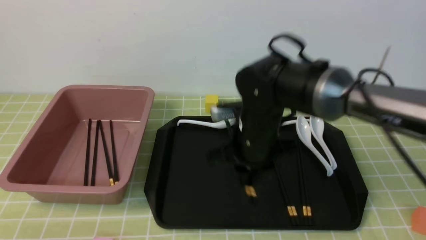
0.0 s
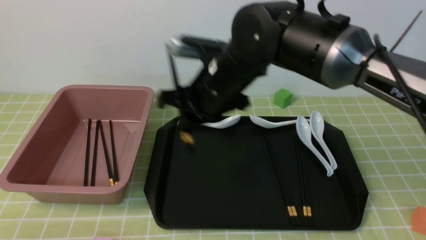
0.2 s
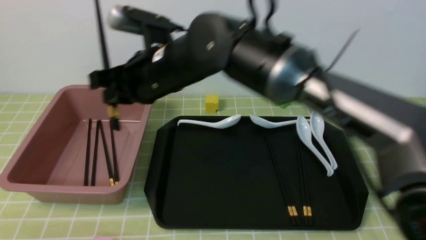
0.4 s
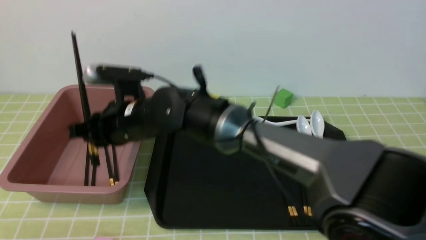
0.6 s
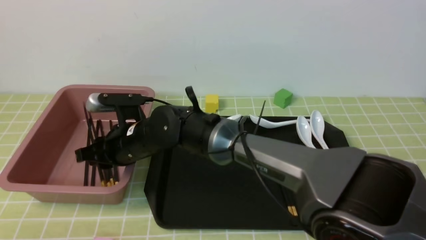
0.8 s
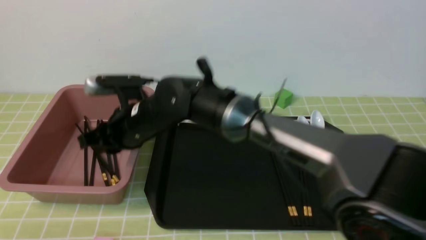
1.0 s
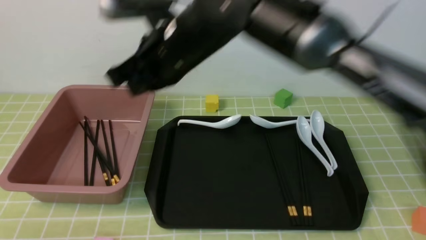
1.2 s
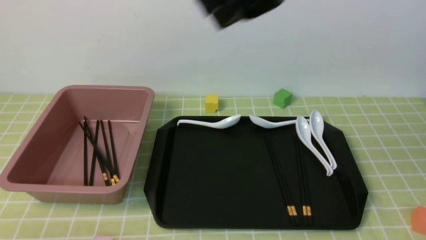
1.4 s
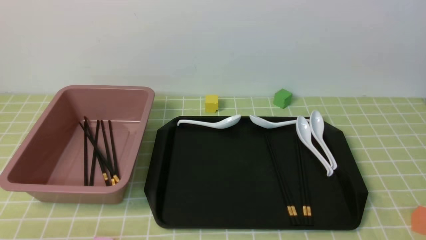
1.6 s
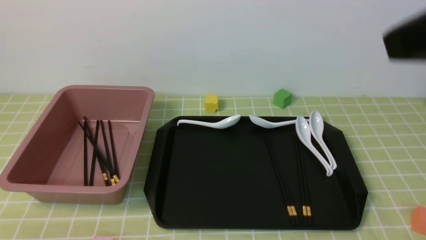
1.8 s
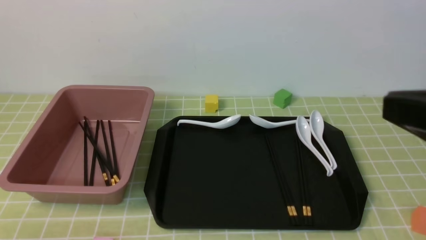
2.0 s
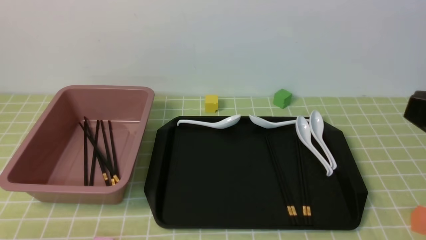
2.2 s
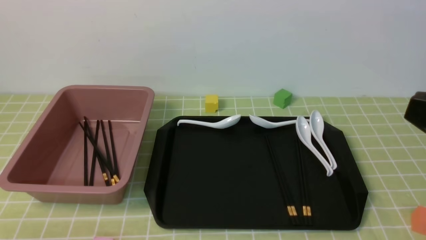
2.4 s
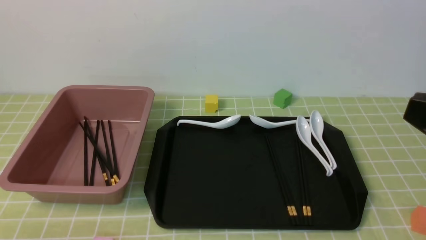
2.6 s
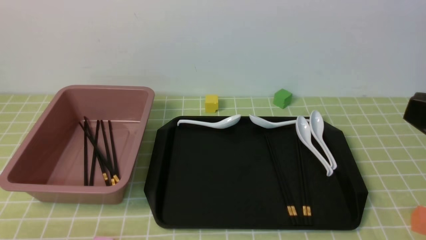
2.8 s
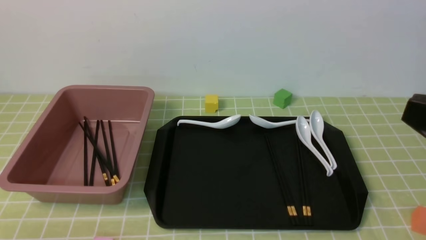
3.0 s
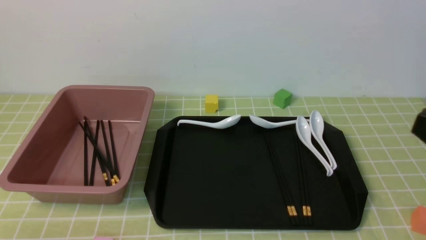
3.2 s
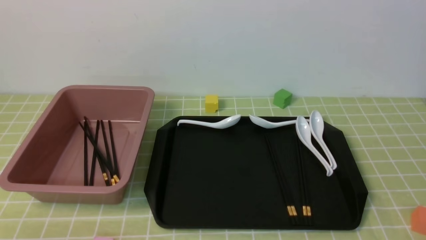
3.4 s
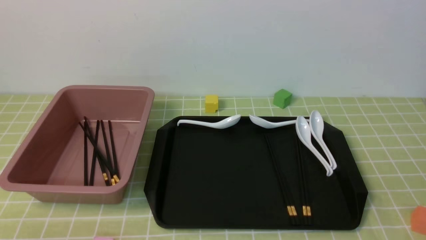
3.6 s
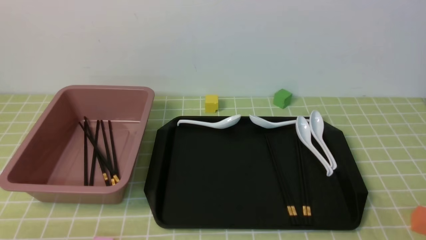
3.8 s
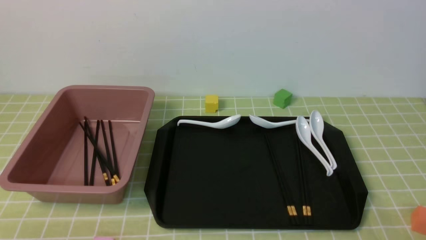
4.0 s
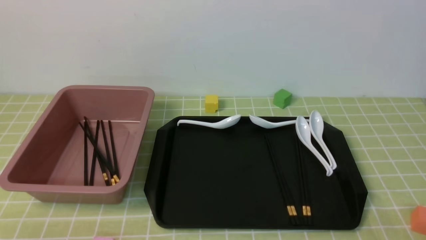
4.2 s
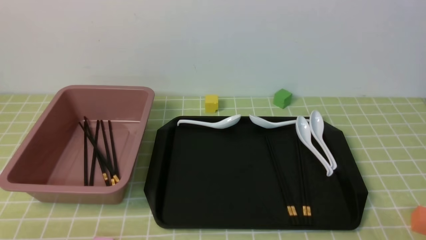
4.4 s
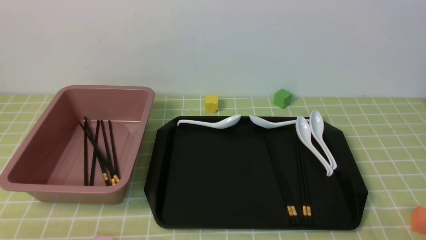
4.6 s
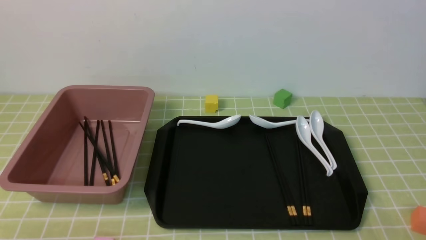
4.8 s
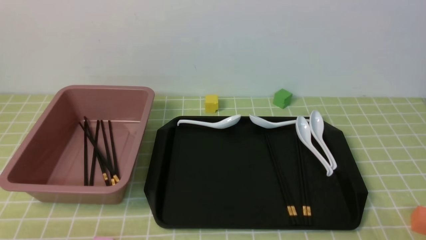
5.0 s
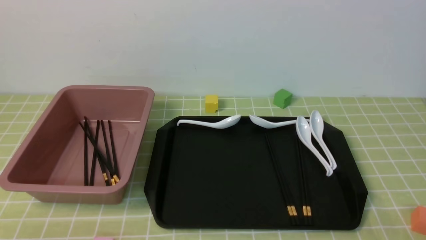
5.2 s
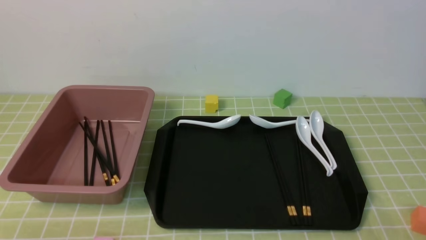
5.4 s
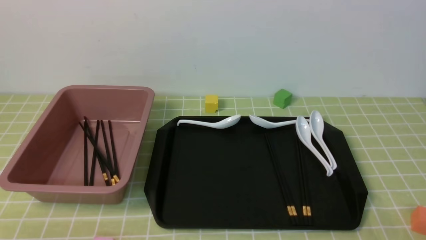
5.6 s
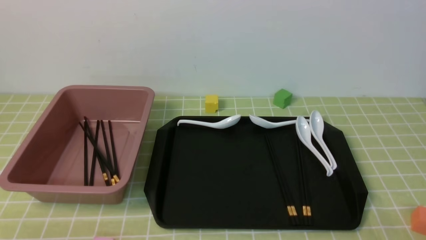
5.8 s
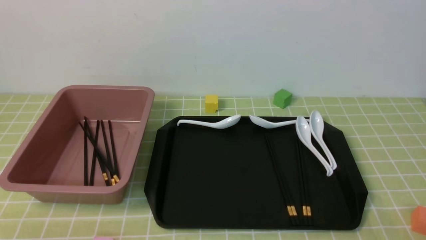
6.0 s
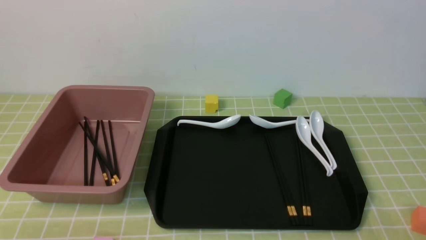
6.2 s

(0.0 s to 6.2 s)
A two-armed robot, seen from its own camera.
Step, 0.2 s - 1.0 s: use the right arm to put the chopsticks into the lunch box.
0.0 s - 1.6 s: The right gripper goes up and down, some 30 cm each way, reversing 2 times, and closes up.
4.6 s - 6.2 s: Both grippers stay about where they are.
